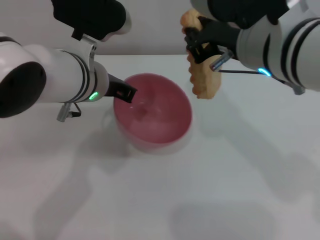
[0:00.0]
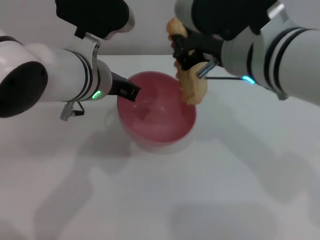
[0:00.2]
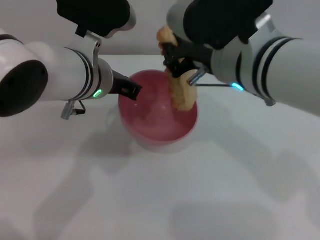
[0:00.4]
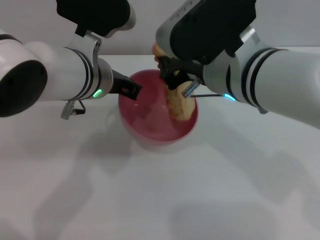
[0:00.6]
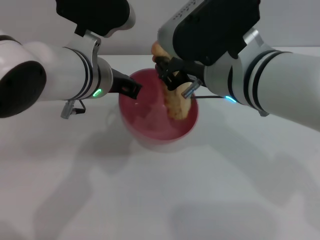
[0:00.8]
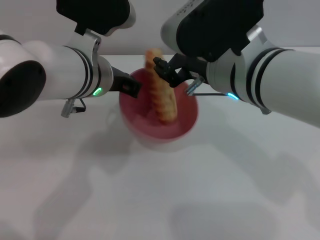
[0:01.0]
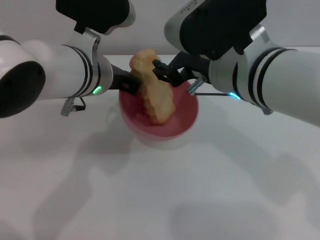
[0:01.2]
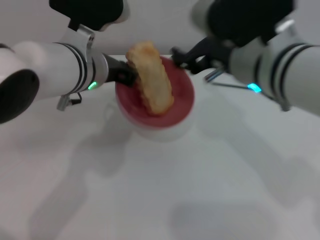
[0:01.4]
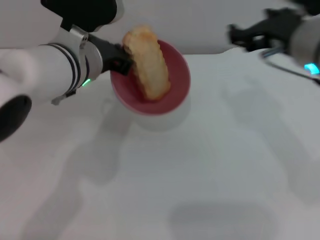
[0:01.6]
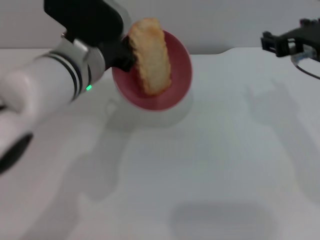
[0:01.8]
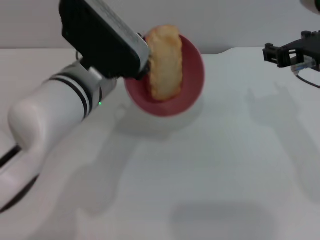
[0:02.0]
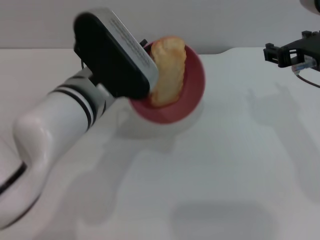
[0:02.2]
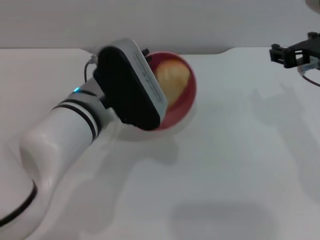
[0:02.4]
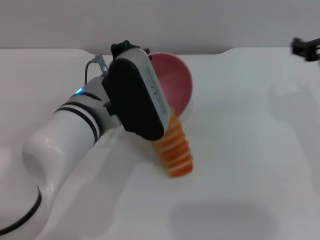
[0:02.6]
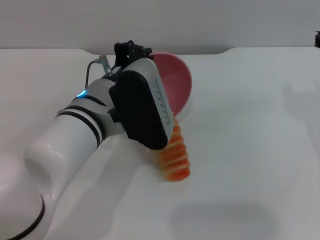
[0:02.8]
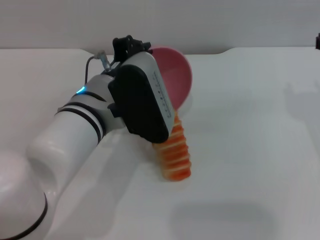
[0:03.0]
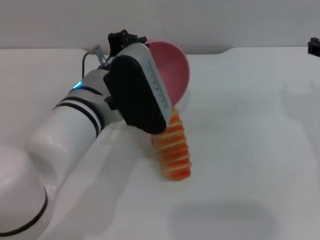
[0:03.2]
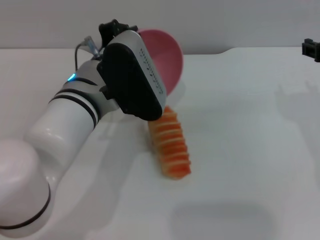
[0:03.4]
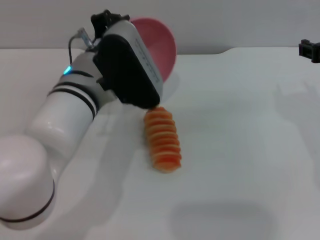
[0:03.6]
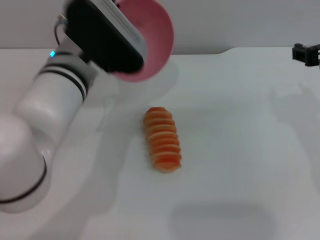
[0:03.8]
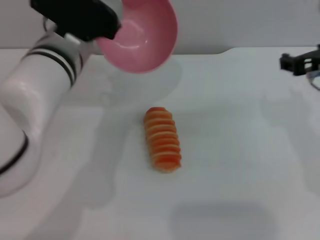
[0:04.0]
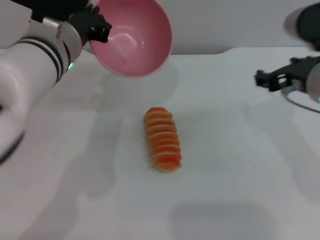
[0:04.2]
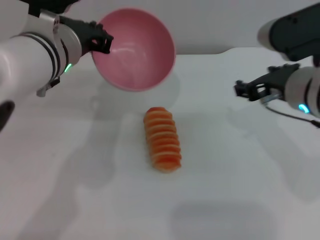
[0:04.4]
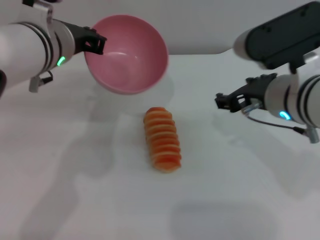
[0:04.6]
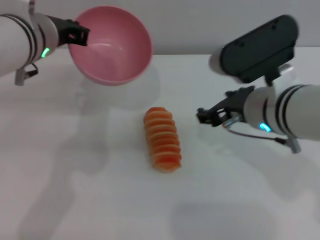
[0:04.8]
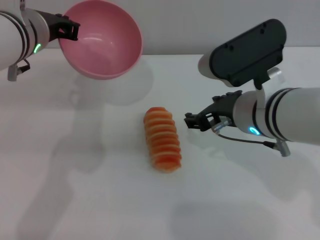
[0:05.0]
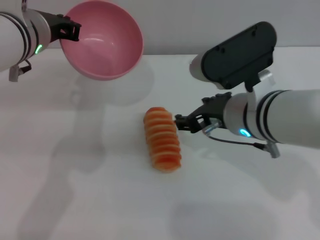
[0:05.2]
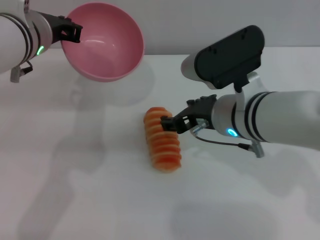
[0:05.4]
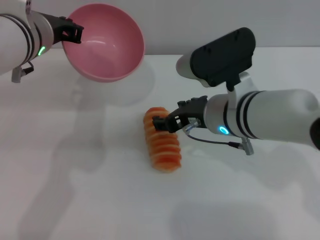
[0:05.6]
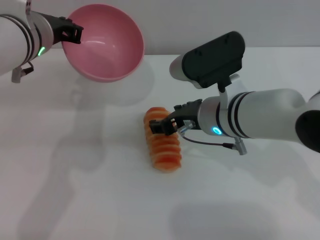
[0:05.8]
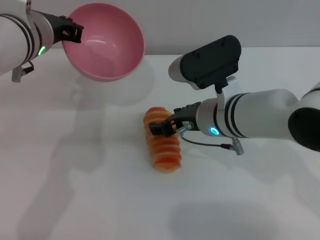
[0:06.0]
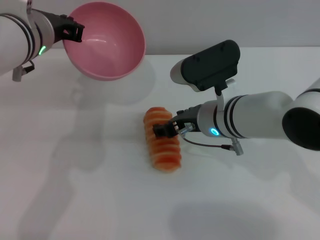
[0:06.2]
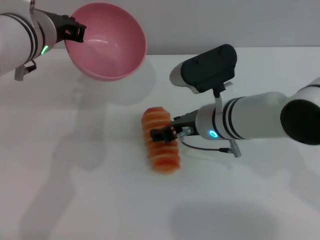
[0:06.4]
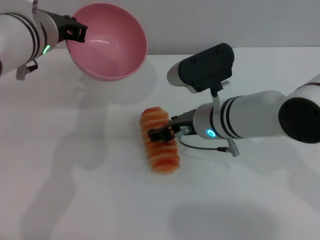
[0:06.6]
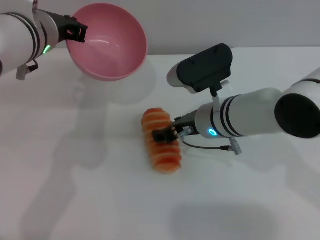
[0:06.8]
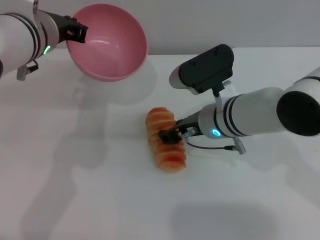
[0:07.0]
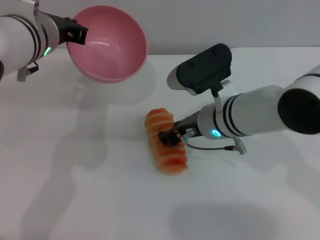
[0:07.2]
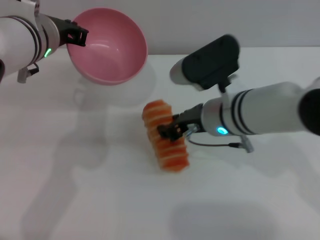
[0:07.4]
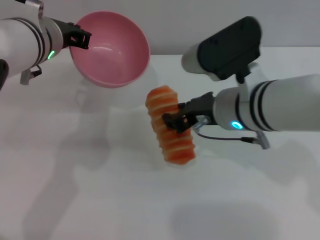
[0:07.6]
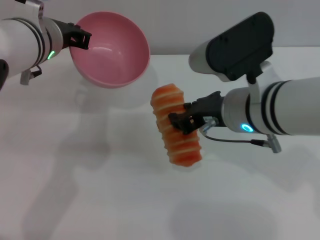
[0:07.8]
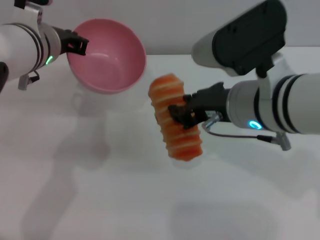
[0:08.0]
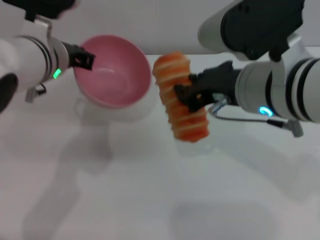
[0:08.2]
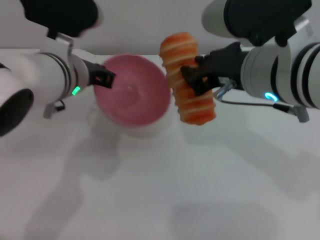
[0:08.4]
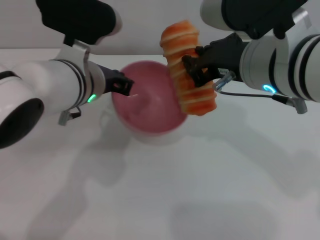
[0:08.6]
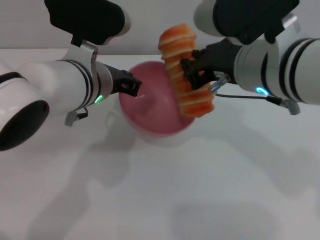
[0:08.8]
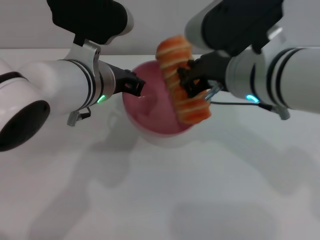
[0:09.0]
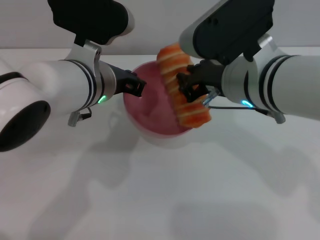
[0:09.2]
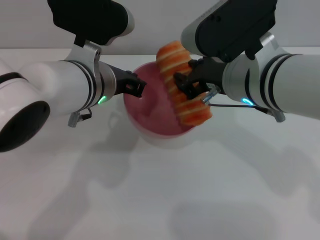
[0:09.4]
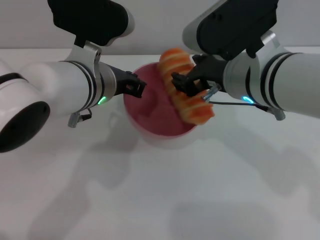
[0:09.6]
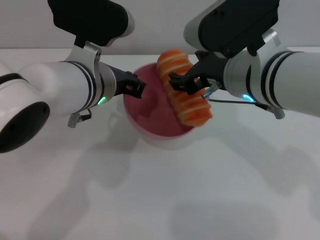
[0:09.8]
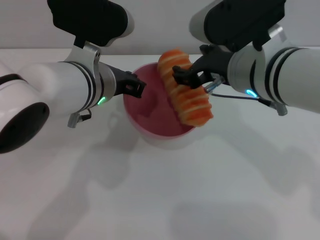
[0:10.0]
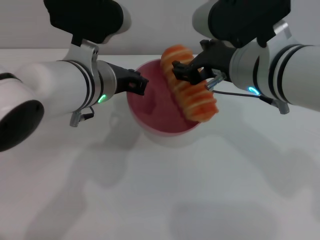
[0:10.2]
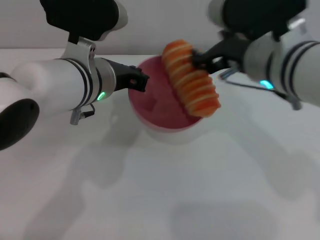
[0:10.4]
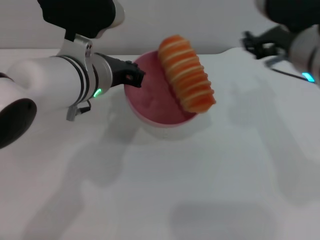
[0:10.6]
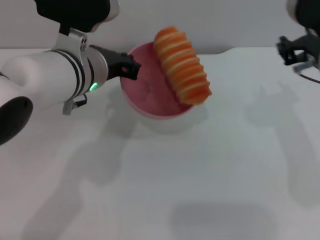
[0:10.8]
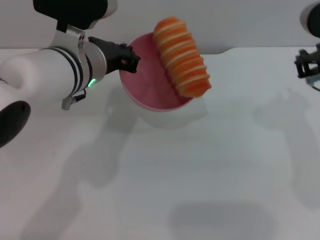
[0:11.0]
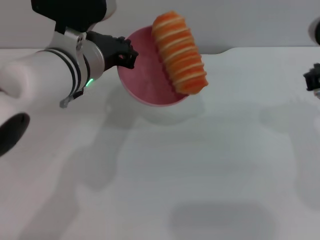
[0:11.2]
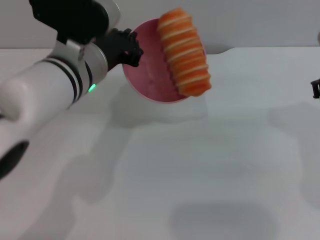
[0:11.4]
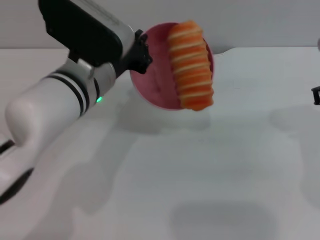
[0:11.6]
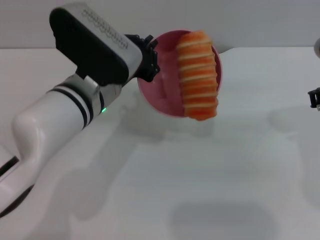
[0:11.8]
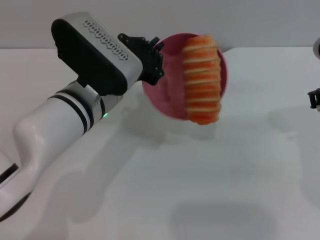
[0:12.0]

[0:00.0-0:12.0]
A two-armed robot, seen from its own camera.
Task of the whole recording: put the bread into the pink bowl and pour it out repeatedly.
Step, 0:00.0 to 0:01.8: Place the bread into the bowl.
Step, 0:02.0 to 0:03.6: Pour the bread out of the bowl.
Step, 0:03.8 to 0:07.8: Pick up the bread with the right gripper.
Step, 0:08.0 to 0:10.0: Place the bread into the bowl.
0:00.0 to 0:01.6: The right gripper travels to the right by roughly 5 cm, and opens up.
0:01.6 to 0:03.0: The left gripper goes roughly 5 cm backward; the right gripper travels to the right by about 10 cm.
0:03.0 to 0:04.4: The right gripper shifts approximately 10 cm to the left, while the left gripper moves upward, roughly 5 cm.
0:04.4 to 0:06.0: The right gripper shifts about 10 cm to the left and downward.
0:06.0 to 0:07.6: The grippers make only small movements.
0:07.6 to 0:09.0: The right gripper heads upward, covering some 5 cm, and closes. The left gripper is displaced to the right by approximately 5 cm.
0:09.0 to 0:10.4: The right gripper opens up.
0:10.4 to 0:12.0: The right gripper moves to the right and downward, roughly 10 cm, and closes its fingers.

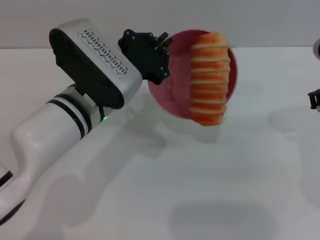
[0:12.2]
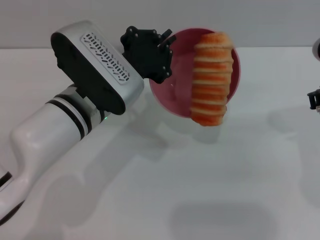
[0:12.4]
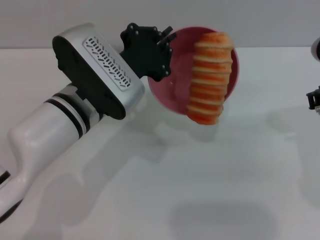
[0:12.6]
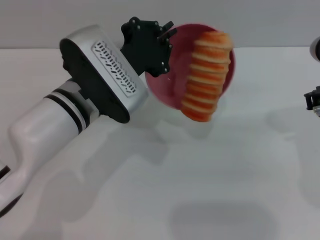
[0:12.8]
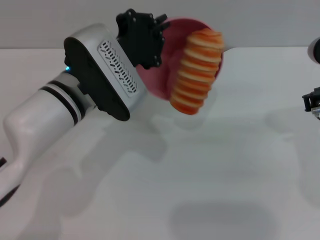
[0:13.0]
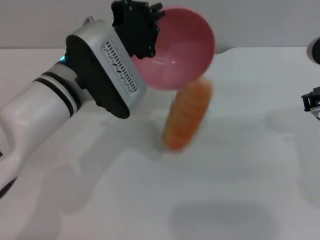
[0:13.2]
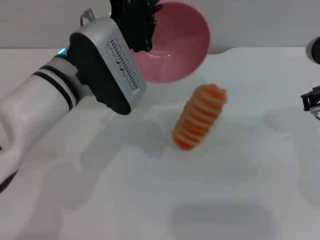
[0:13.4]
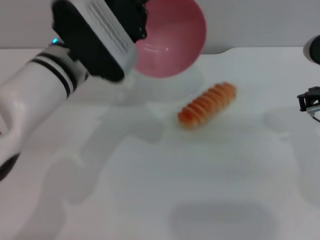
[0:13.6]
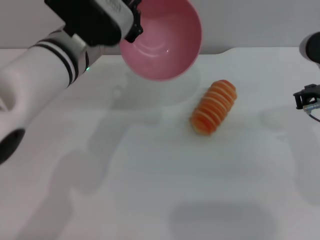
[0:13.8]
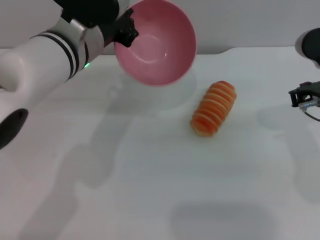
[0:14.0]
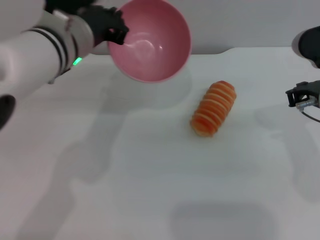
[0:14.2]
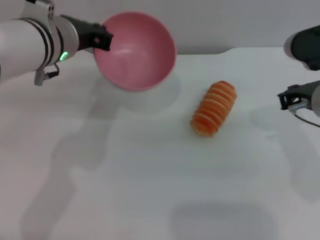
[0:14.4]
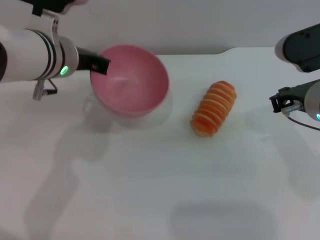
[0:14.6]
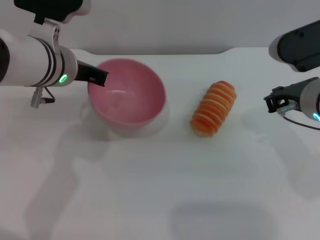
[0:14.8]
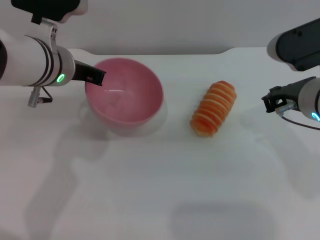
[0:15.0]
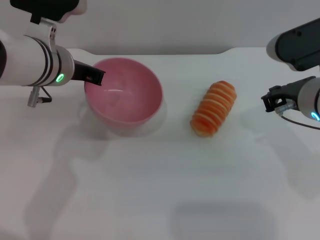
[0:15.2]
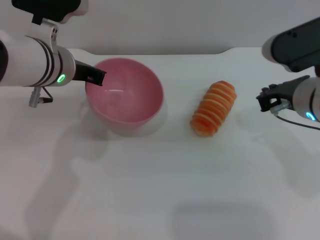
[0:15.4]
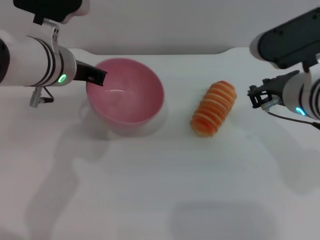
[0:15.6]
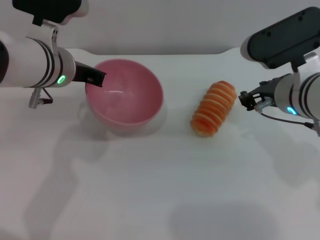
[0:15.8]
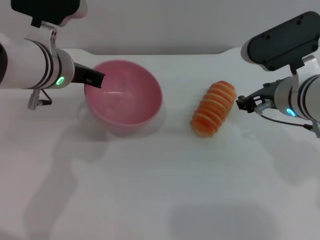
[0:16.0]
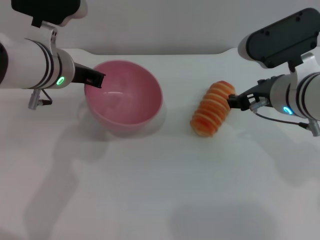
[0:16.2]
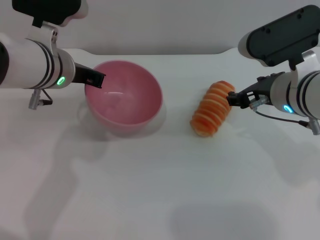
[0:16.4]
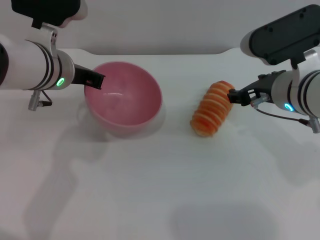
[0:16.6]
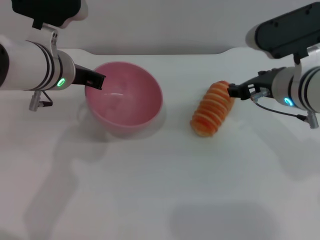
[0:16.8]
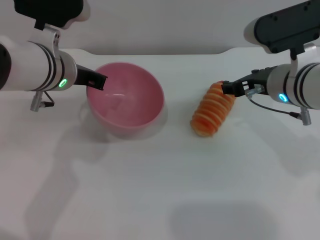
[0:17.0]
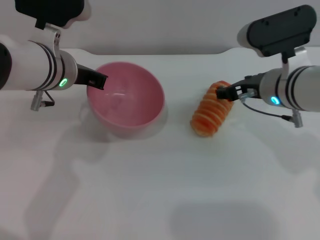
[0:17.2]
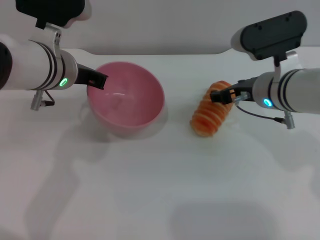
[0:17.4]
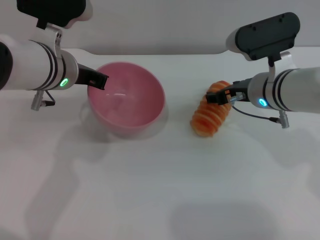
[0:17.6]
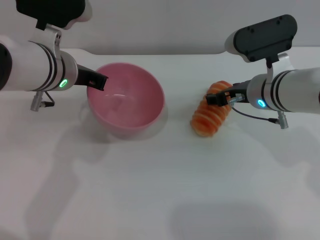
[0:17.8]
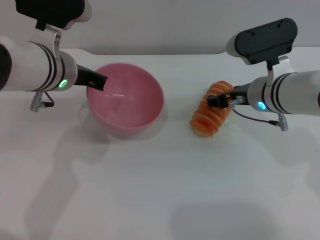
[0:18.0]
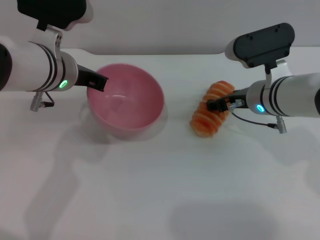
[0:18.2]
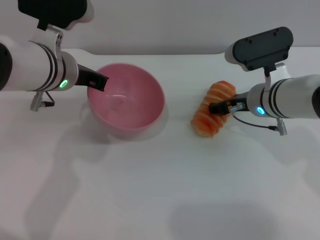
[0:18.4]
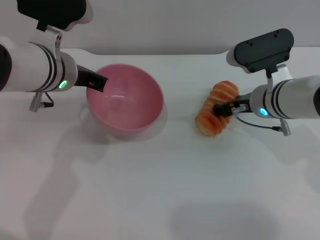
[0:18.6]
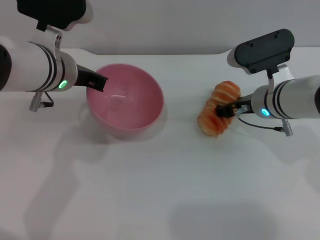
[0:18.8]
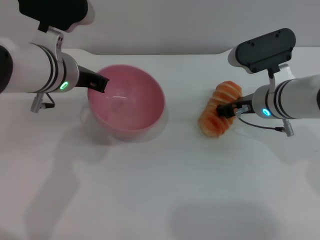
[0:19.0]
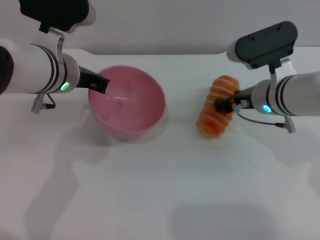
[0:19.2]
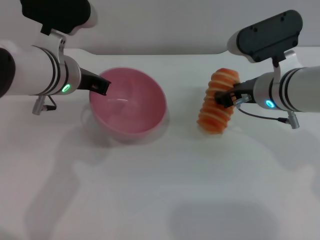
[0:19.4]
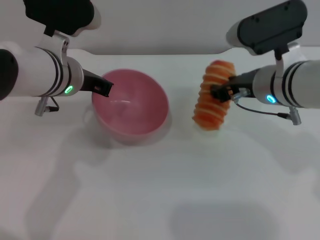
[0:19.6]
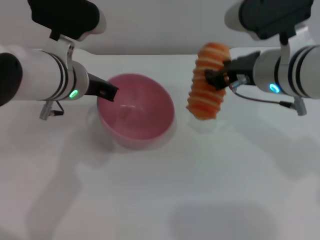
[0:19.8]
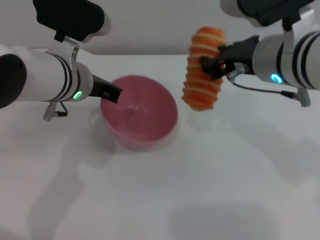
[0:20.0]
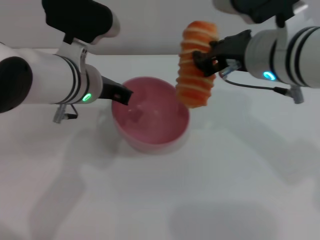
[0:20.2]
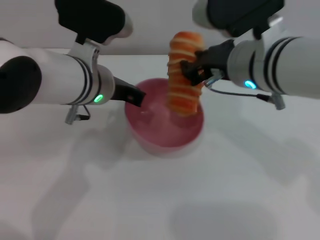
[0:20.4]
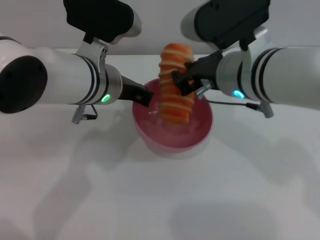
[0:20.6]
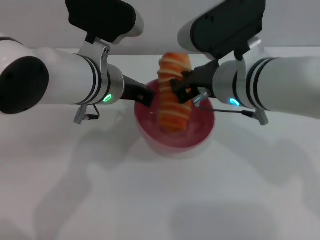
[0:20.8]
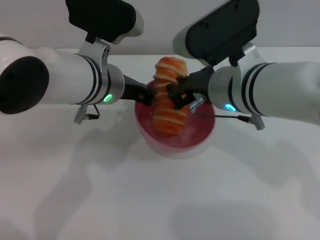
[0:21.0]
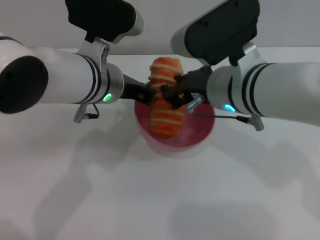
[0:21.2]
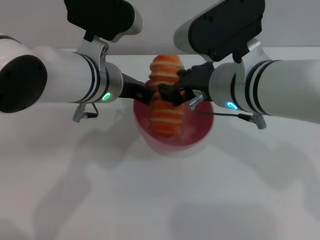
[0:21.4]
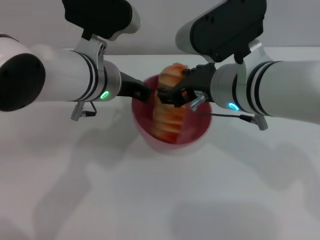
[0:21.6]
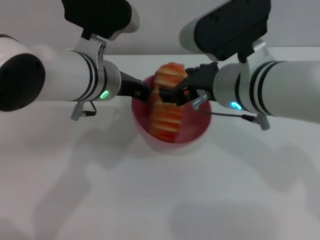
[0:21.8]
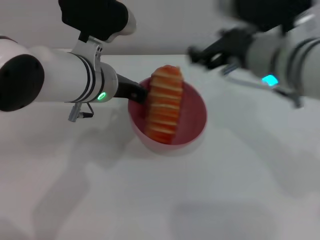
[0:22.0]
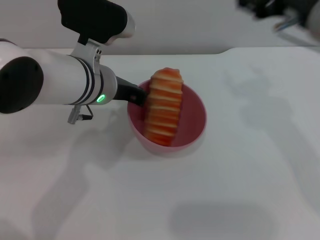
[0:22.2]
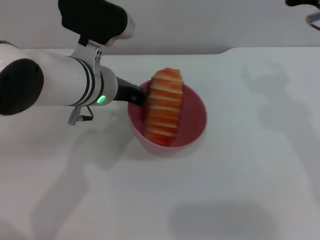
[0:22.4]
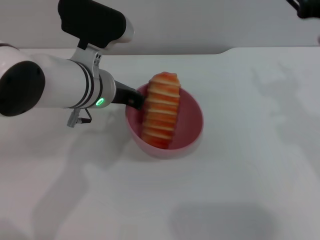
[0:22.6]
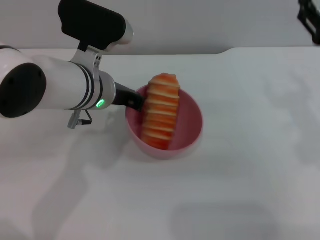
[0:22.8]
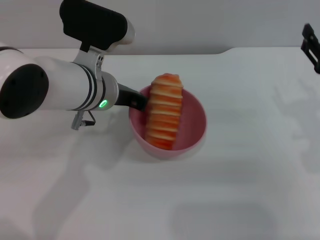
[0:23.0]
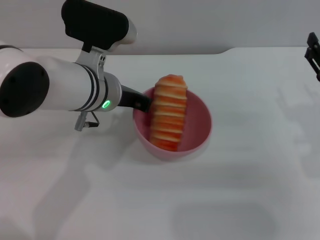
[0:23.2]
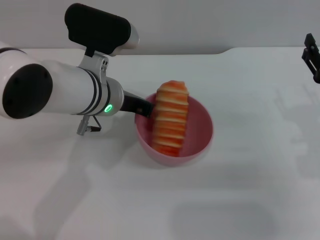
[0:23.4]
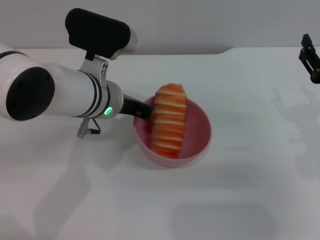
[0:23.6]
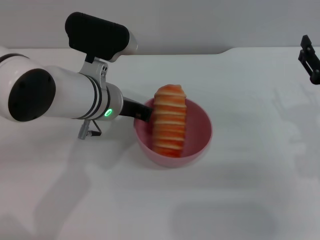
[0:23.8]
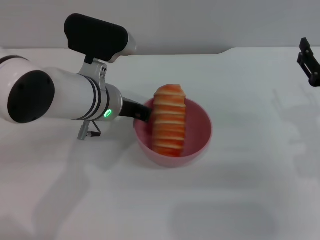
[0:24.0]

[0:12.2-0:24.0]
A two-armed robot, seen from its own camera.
Task of the whole recording: put the bread into the pink bowl and pour it out repeatedly.
Step, 0:13.8 to 0:19.6: Pick up the bread with the right gripper.
Step, 0:19.8 to 0:22.0: Place the bread into the bowl.
0:12.2 to 0:13.6: The left gripper moves approximately 5 cm.
0:15.2 to 0:16.6: The right gripper opens its fingers.
0:16.6 to 0:18.2: The right gripper is displaced downward by roughly 5 cm.
0:18.2 to 0:19.6: The right gripper heads upward, covering roughly 5 cm.
0:19.6 to 0:21.0: The right gripper shifts about 5 cm to the left. The left gripper ends up some 5 cm from where it was.
0:21.0 to 0:22.6: The right gripper moves to the right, some 15 cm, and opens.
0:22.6 to 0:24.0: The right gripper travels downward by about 10 cm.
